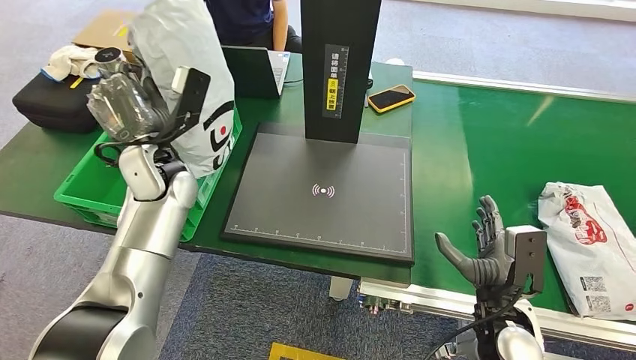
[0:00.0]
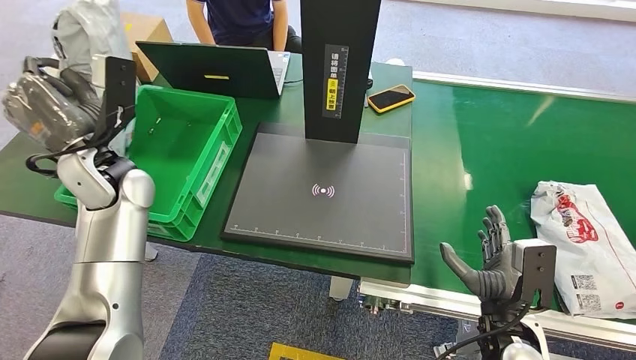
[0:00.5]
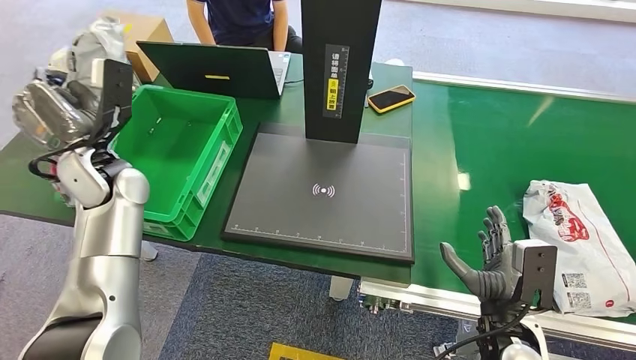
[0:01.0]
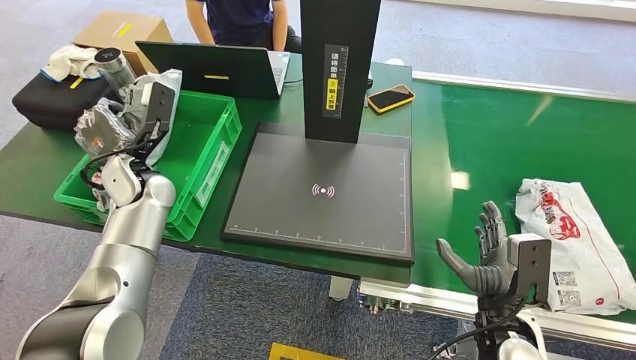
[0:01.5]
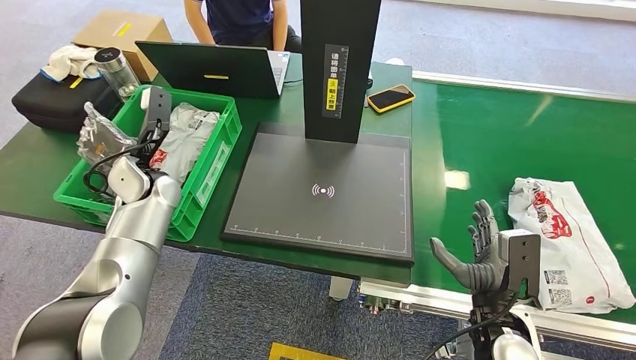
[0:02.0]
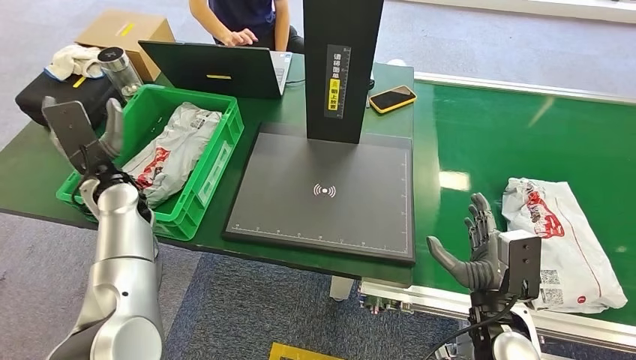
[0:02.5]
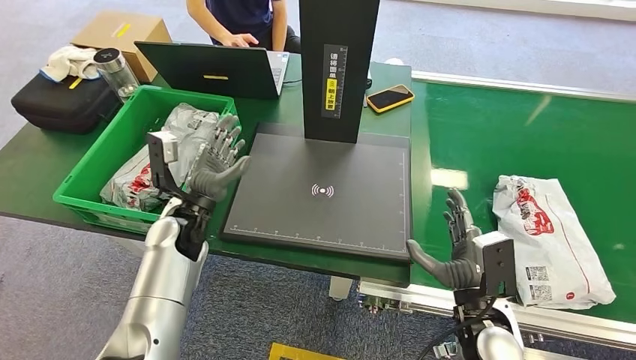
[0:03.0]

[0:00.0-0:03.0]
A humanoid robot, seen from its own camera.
Task of the whole recording: Weigh the package on the weighing device and place it in the left basket.
Step, 0:00.0 to 0:03.0: Place the package into the parcel locker.
